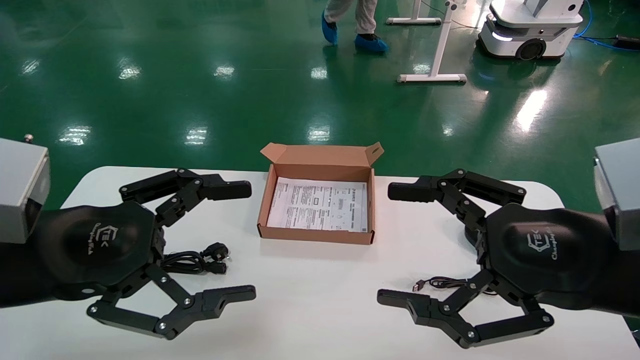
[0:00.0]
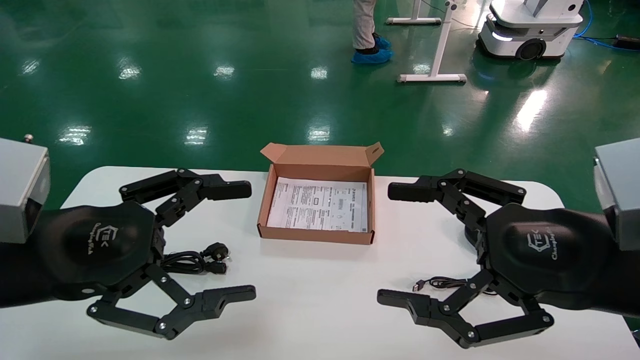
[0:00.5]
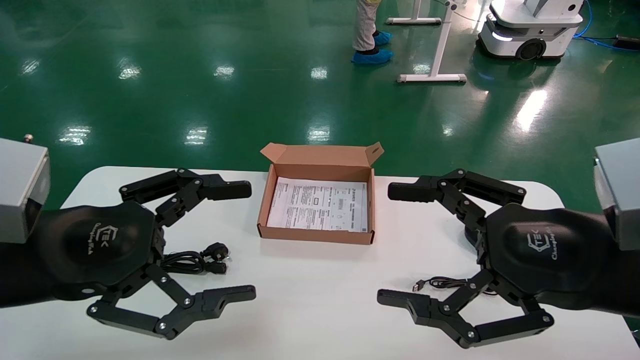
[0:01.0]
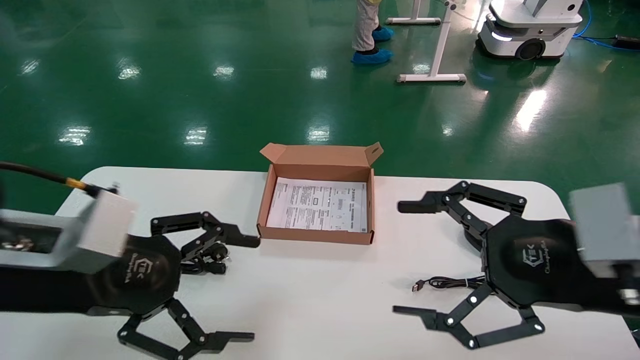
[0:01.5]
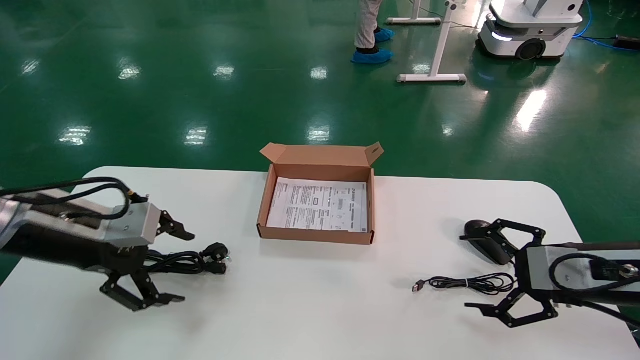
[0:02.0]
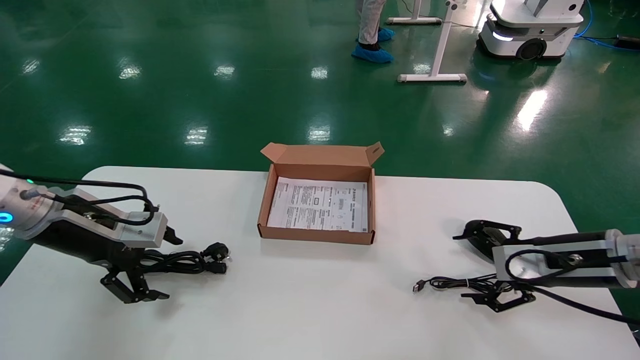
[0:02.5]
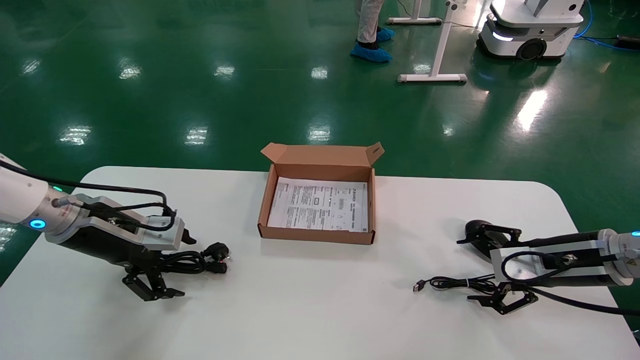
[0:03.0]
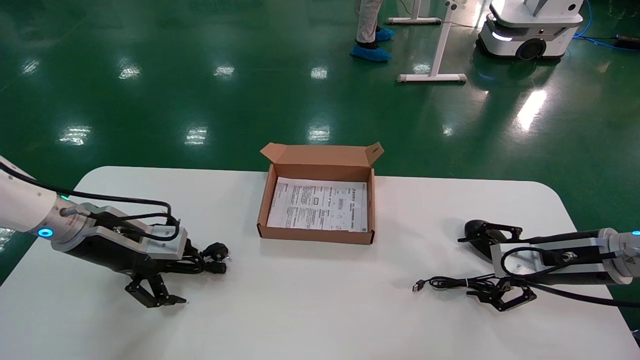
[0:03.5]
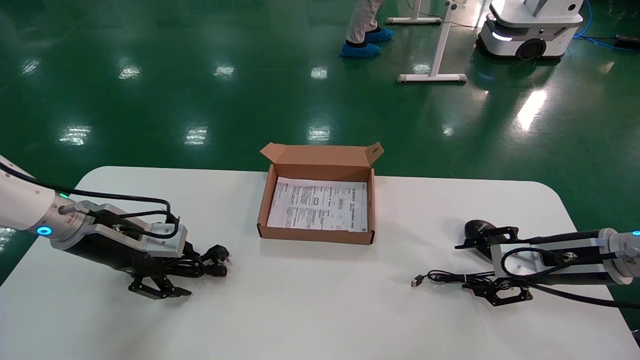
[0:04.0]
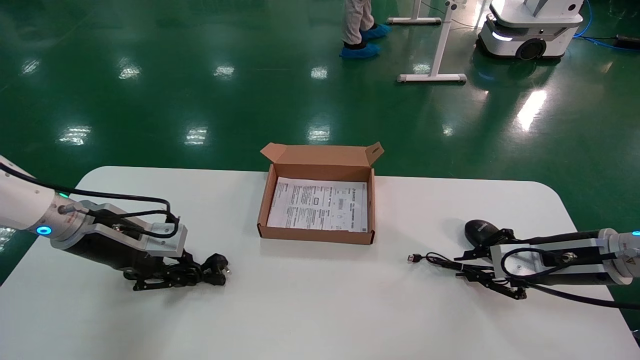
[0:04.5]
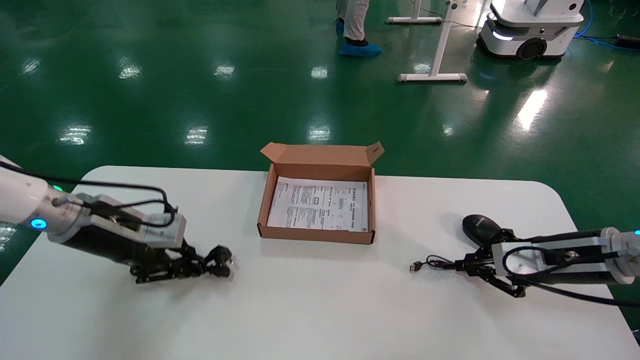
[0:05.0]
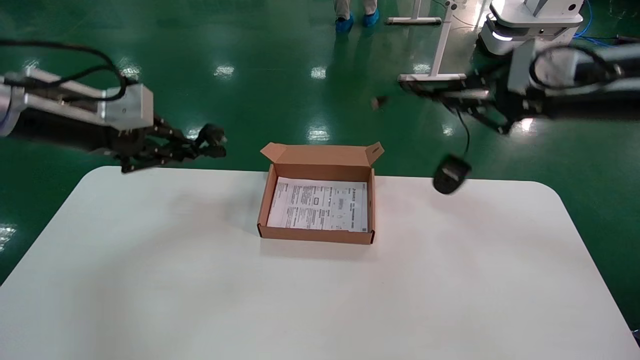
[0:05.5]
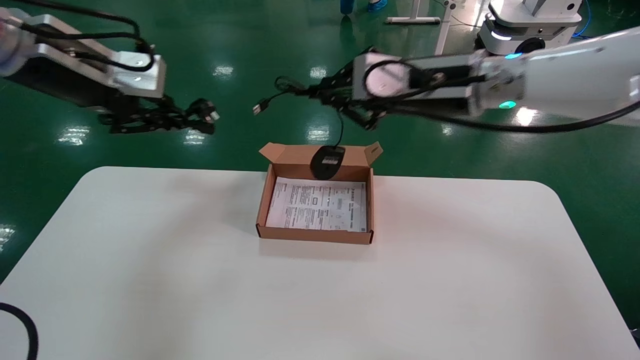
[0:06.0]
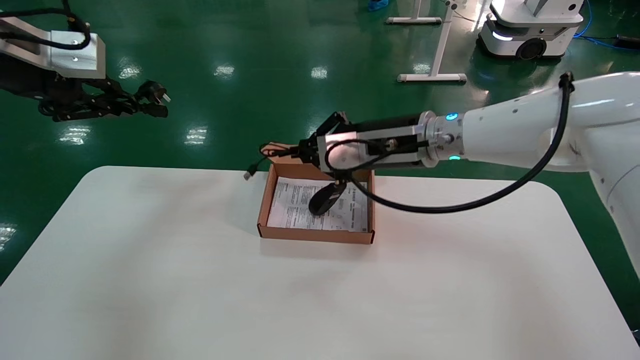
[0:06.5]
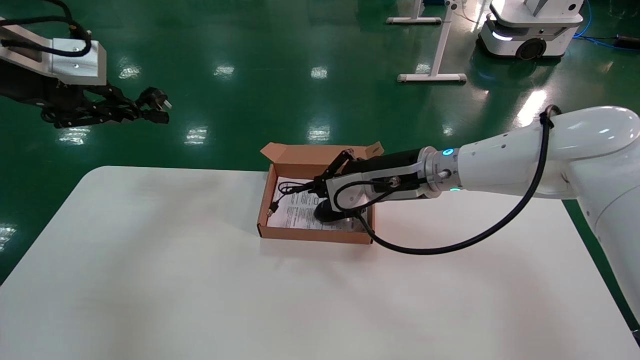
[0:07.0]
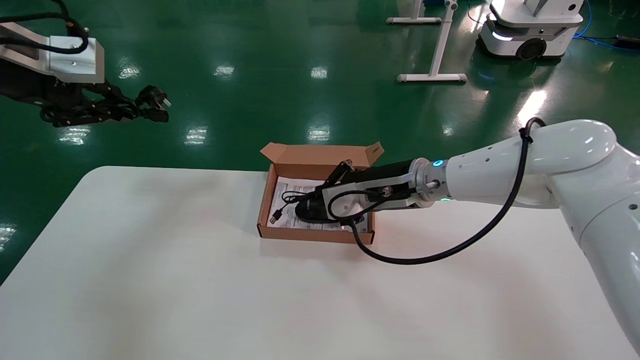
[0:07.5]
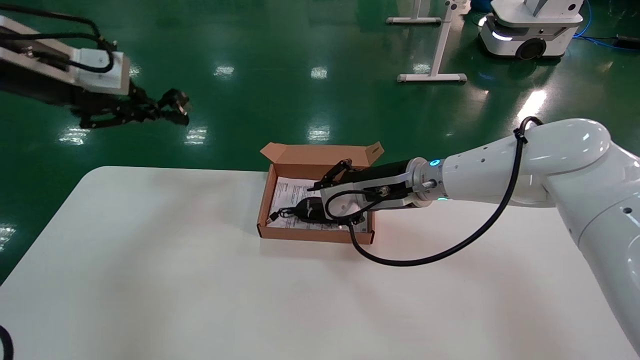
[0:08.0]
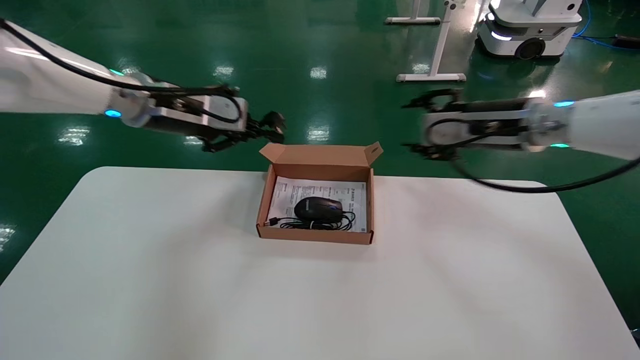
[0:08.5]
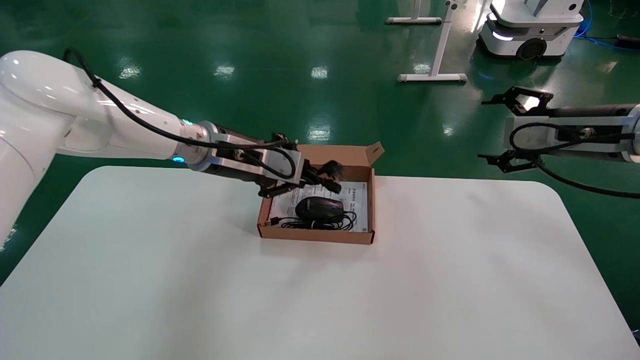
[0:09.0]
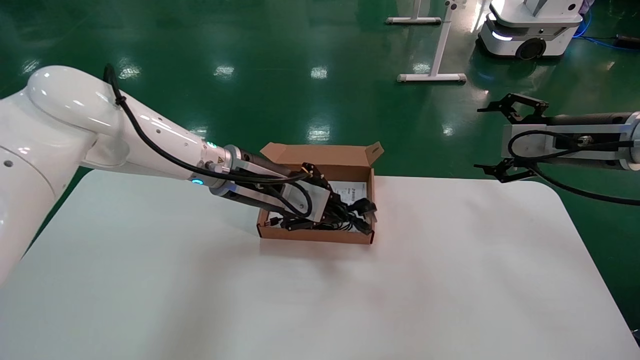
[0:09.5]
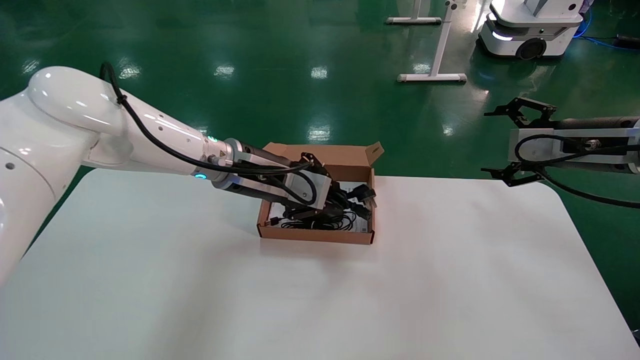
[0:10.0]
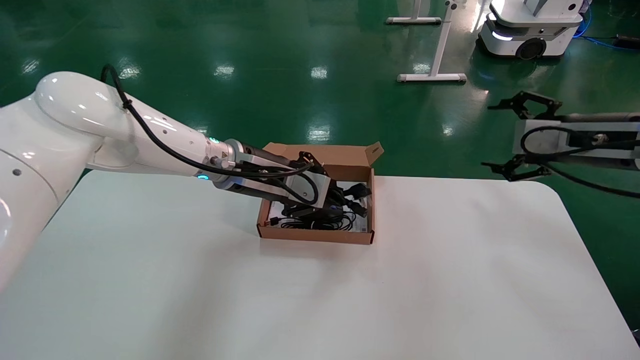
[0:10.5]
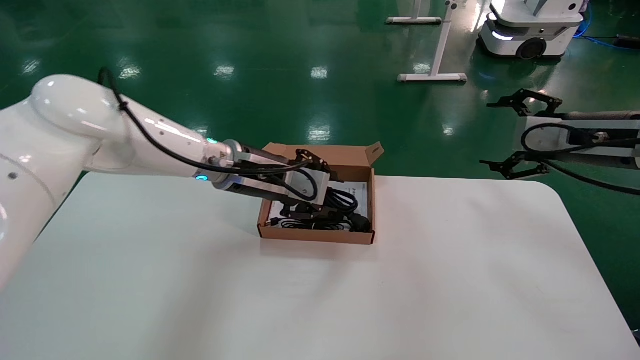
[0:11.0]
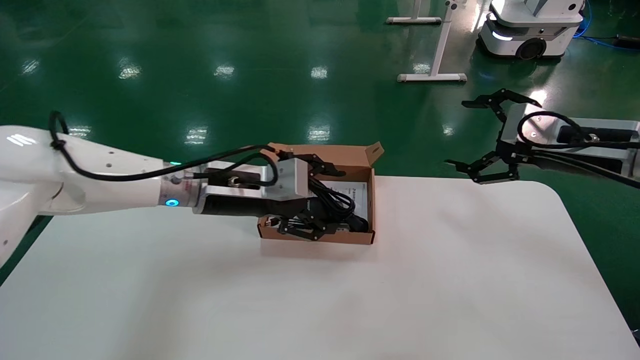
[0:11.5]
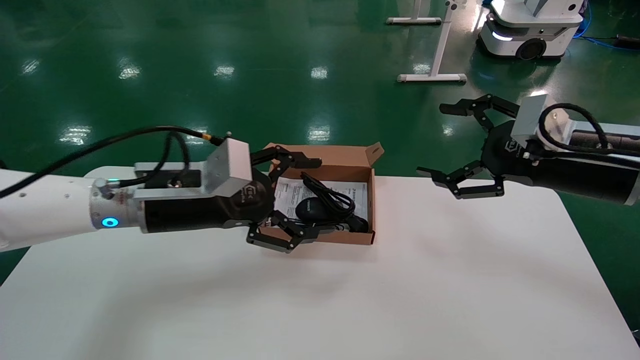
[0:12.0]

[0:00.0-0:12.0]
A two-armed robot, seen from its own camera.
Step, 0:02.0 to 0:04.5: Grab and lift both the mouse and power cord from the accessory packaging area at the same time.
Step, 0:05.0 to 0:11.0: Place the mouse and power cord into the box.
0:00.0 to 0:02.0: The left gripper heads forward and to the left, covering approximately 15 cm. Meanwhile the right gripper moves forward, to the right and downward, roughly 15 cm.
0:02.0 to 0:04.0: The left gripper heads forward and downward, covering about 10 cm. The right gripper moves forward, some 5 cm.
0:04.0 to 0:06.0: The right gripper moves upward and to the left, some 30 cm, and closes, while the left gripper travels upward by approximately 25 cm, and closes.
0:06.0 to 0:08.0: The right gripper travels downward by some 15 cm.
0:08.0 to 0:10.0: The left gripper goes approximately 30 cm to the right and downward. Meanwhile the right gripper is displaced to the right by approximately 25 cm, and opens.
0:10.0 to 0:12.0: The two grippers go roughly 10 cm backward and to the left. The left gripper opens its fingers.

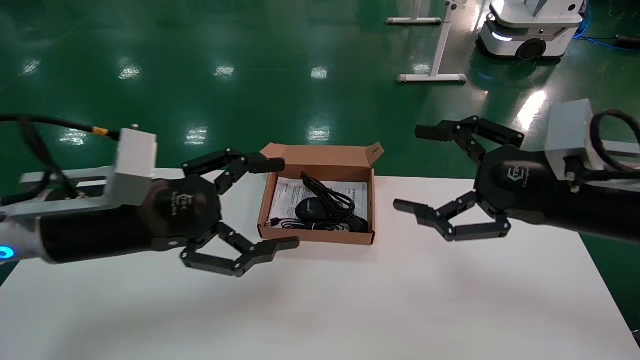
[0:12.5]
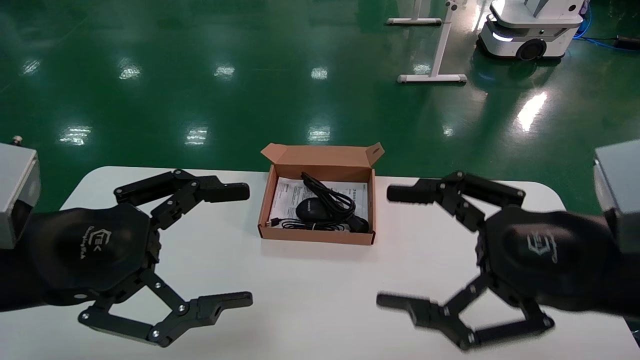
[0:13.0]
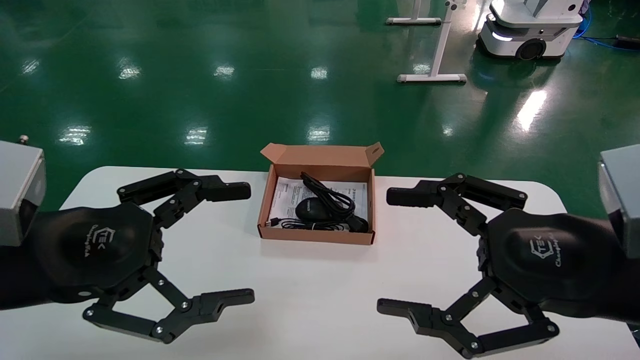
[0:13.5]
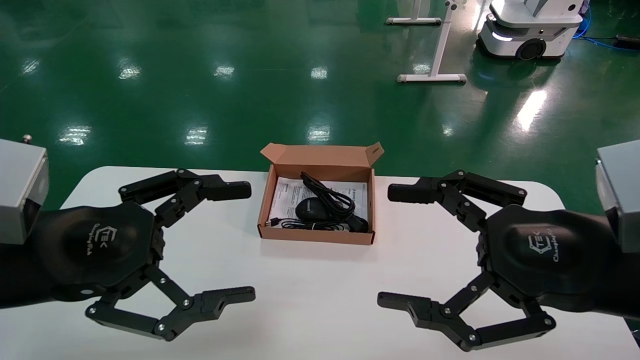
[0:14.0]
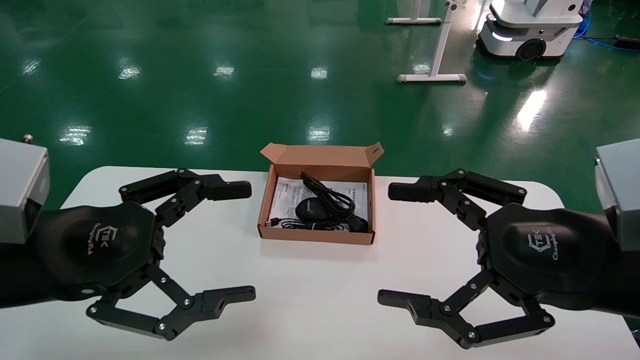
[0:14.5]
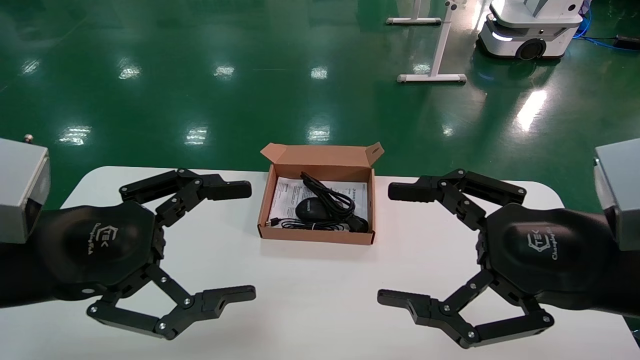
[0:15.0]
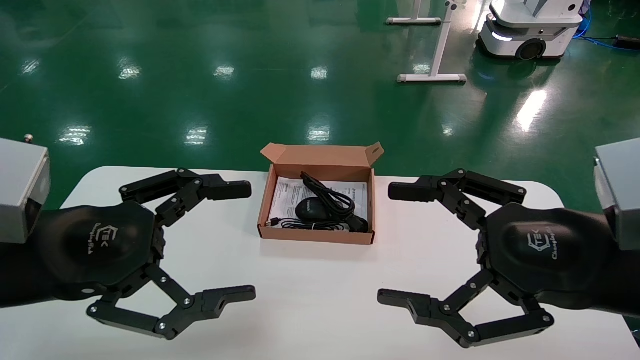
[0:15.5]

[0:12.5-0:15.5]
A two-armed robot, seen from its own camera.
0:12.5 to 0:14.0: Both grippers travel together backward, some 5 cm.
0:14.0 to 0:15.5: The two grippers keep their place.
